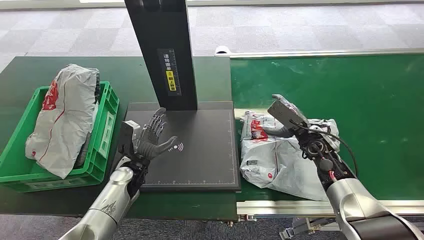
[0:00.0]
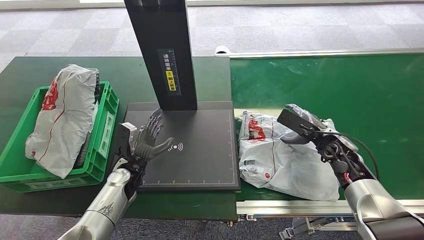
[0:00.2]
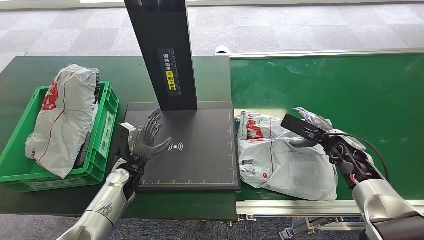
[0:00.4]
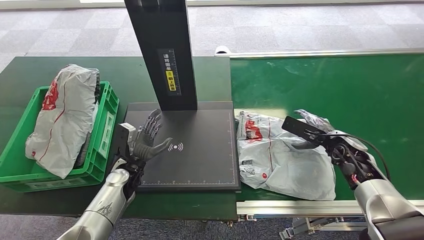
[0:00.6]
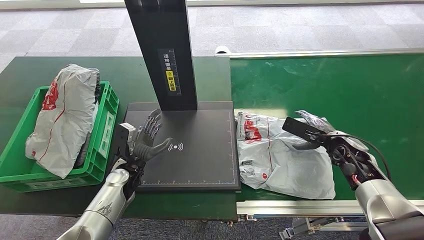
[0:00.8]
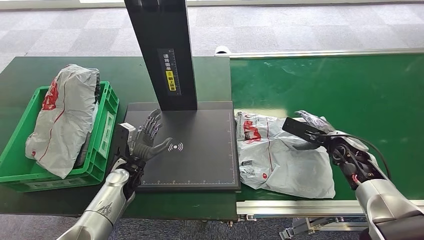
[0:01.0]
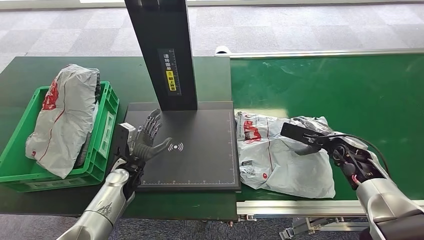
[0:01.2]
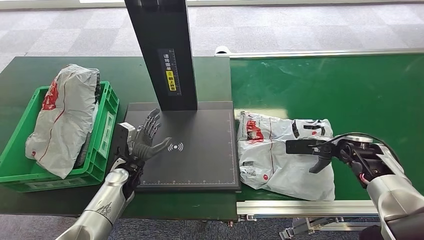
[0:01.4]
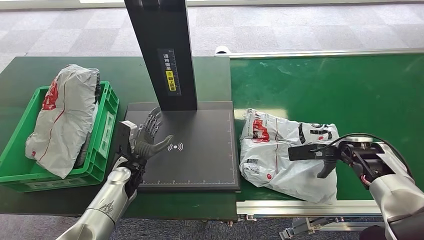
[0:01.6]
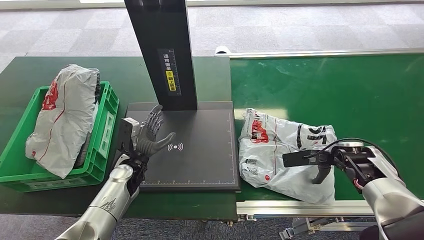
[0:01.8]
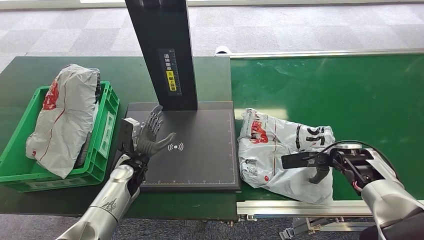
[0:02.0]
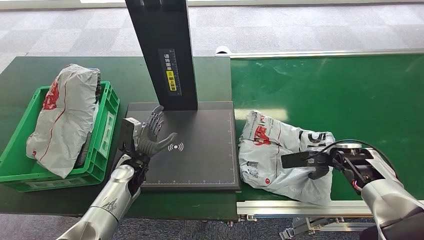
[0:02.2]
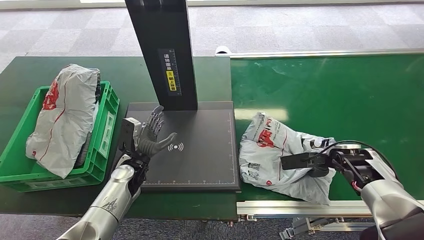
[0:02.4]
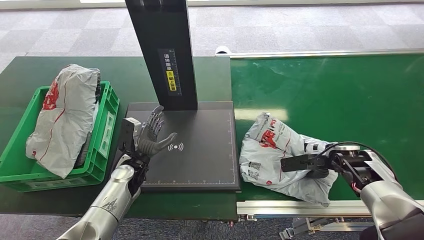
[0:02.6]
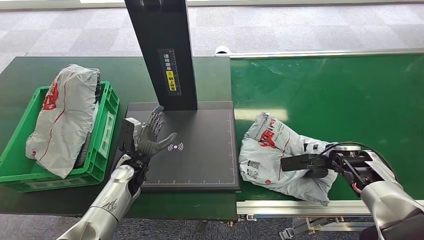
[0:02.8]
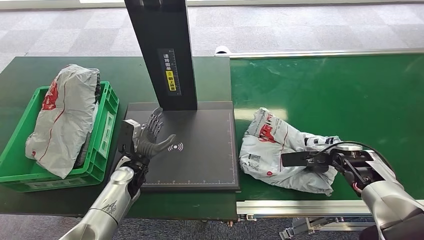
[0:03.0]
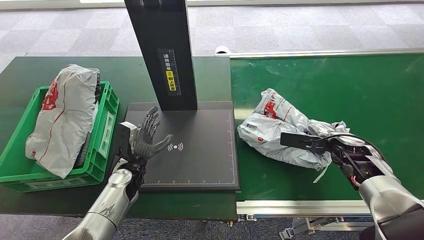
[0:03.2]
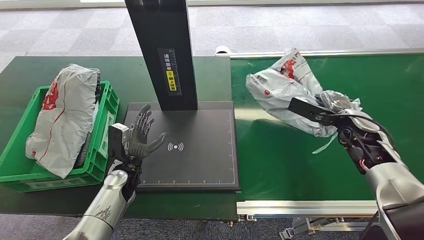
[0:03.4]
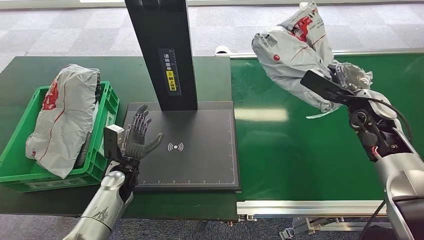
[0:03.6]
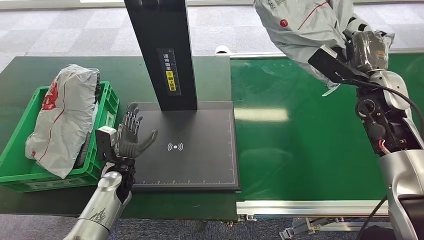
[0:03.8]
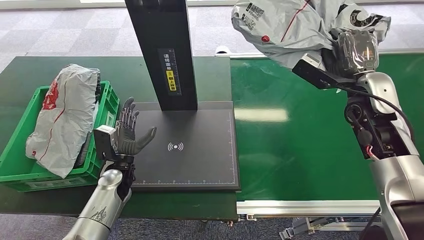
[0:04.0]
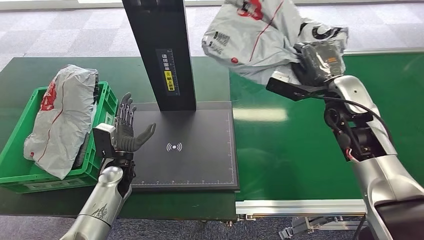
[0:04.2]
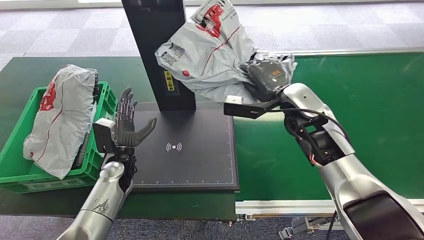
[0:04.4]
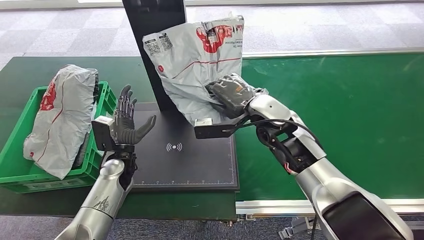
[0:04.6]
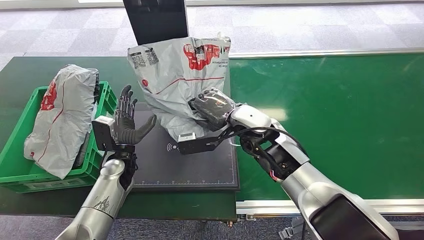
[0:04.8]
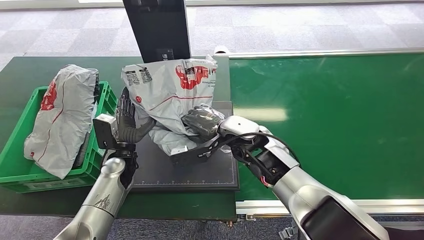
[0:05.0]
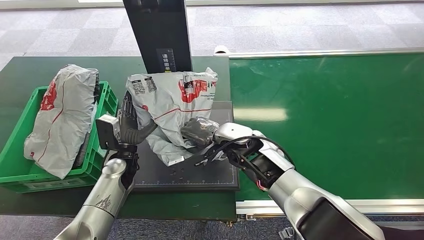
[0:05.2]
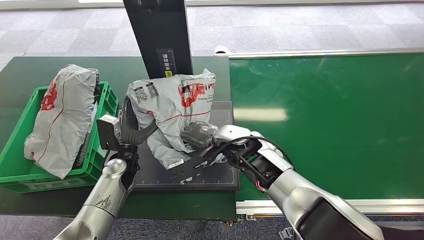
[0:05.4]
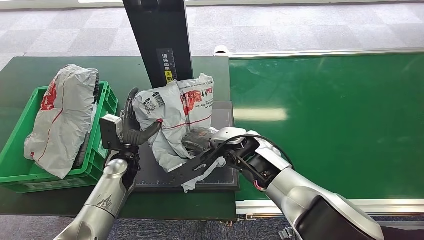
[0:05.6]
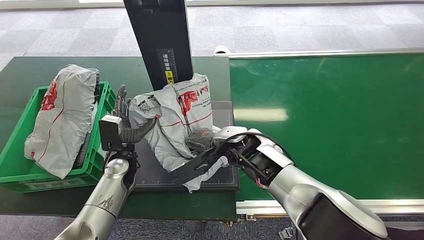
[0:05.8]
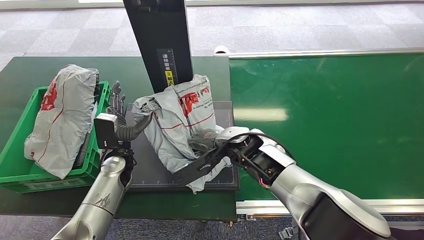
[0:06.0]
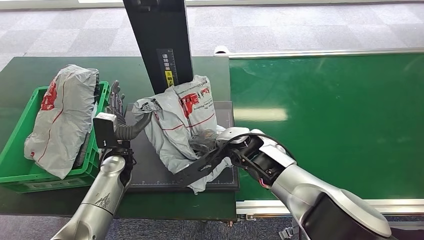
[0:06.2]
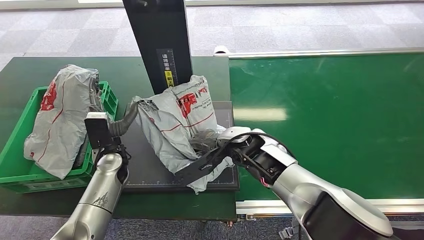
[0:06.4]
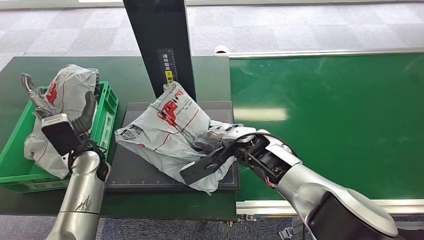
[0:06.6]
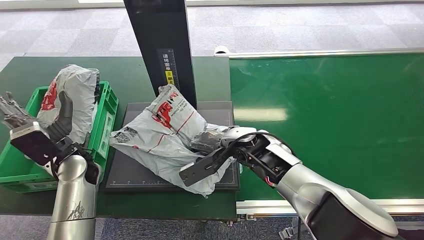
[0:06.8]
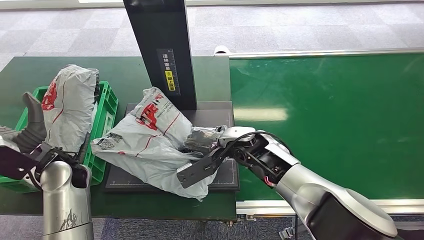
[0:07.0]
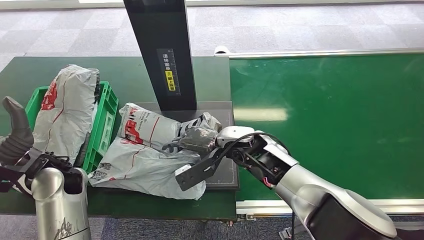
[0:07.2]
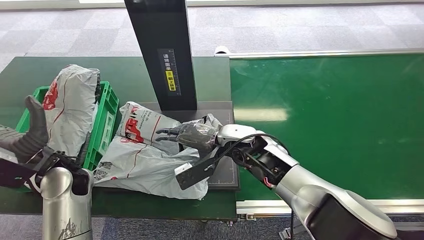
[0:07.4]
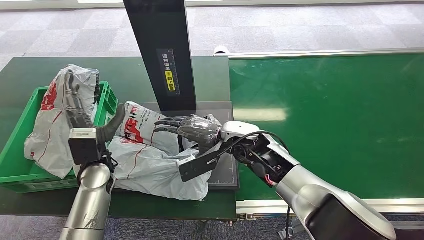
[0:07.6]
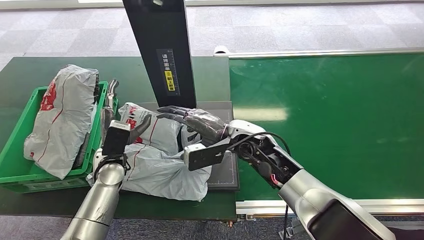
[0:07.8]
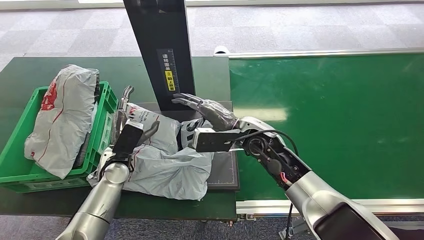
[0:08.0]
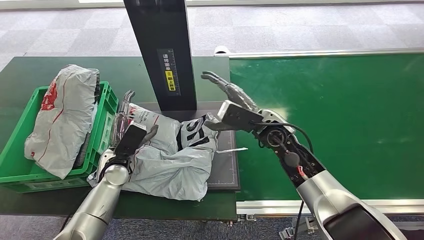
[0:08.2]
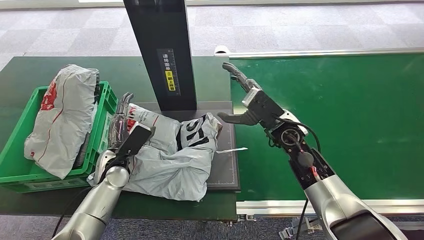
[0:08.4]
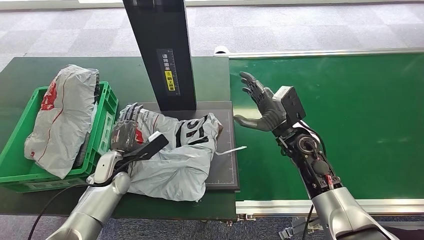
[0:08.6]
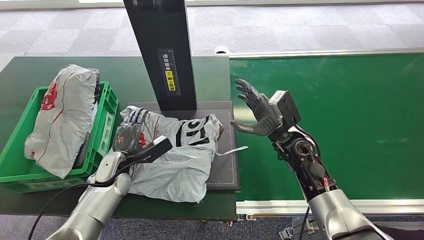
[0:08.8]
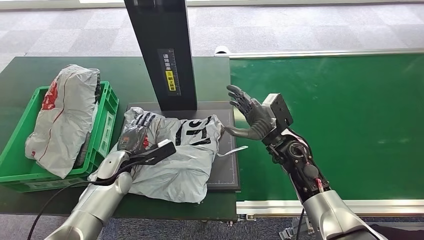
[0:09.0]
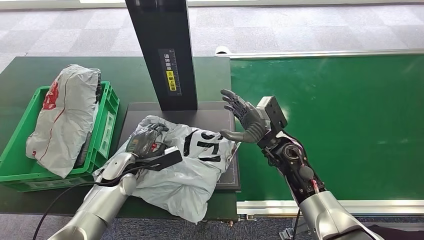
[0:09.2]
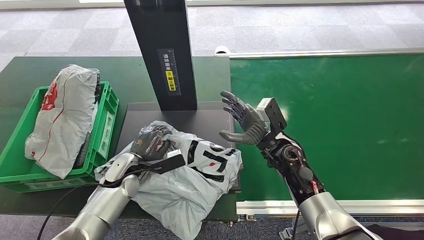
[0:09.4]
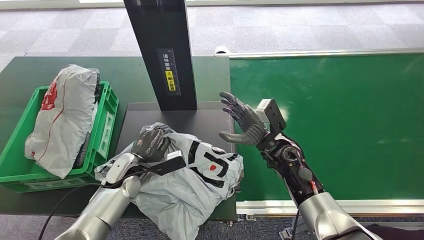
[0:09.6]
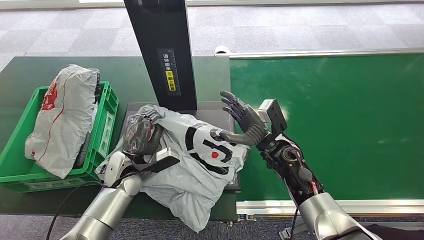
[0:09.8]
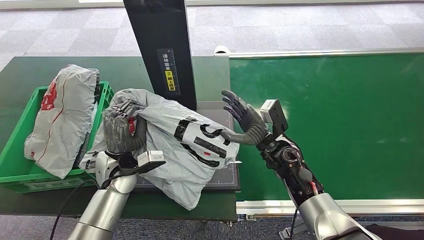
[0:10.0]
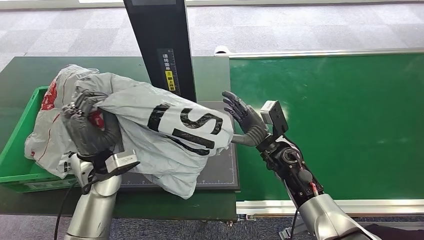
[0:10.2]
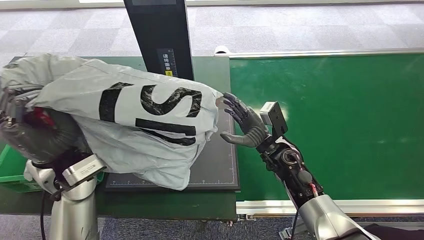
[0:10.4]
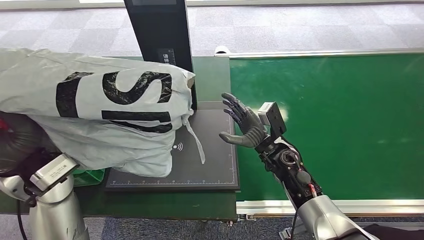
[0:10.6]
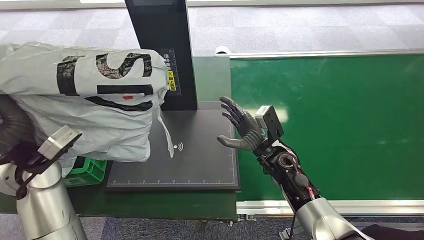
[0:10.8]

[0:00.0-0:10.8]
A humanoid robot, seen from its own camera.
Step, 0:00.0 to 0:03.2: Pick up the package from the conveyor belt.
Step, 0:03.6 to 0:07.6: Place the package onto the inbound machine.
Step, 0:07.8 to 0:09.8: Pick up the package from the inbound machine.
0:01.6 to 0:03.0: The hands move only a little.
0:06.2 to 0:07.8: The left hand moves approximately 10 cm upward and comes back.

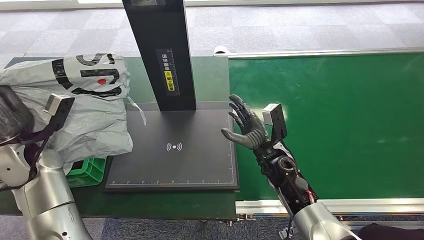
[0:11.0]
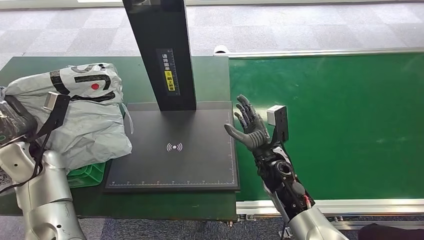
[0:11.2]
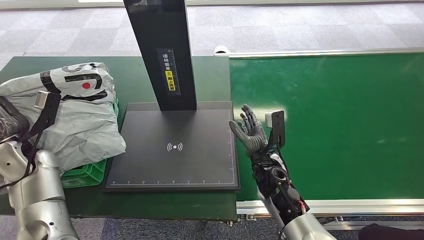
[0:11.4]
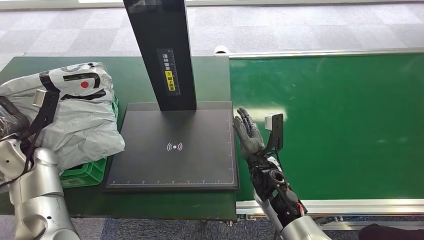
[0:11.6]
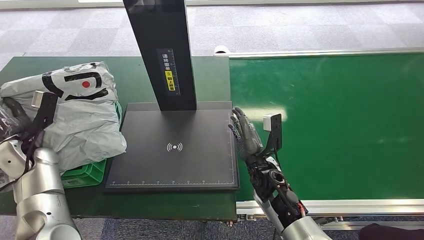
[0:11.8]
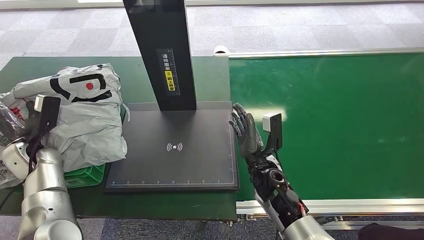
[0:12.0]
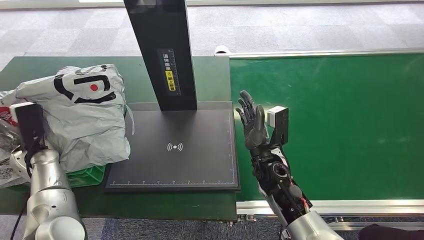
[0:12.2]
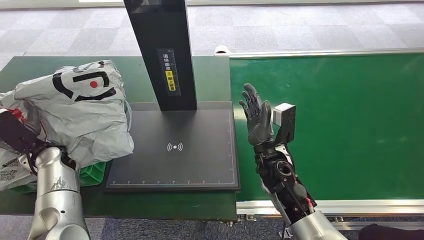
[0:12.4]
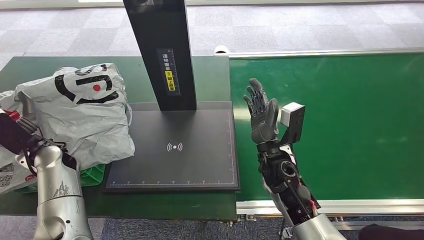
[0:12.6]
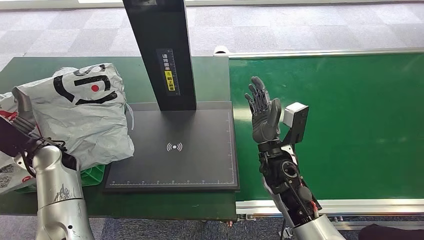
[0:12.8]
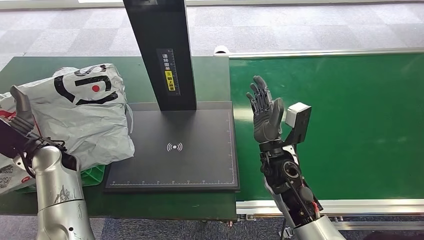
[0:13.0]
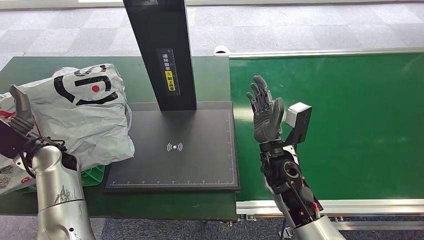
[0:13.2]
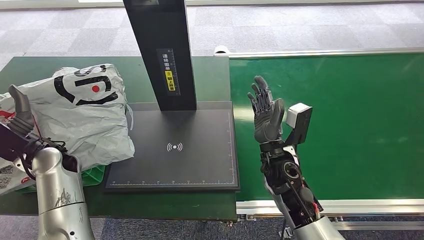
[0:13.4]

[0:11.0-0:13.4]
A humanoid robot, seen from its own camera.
Step, 0:11.0 to 0:13.4: Place the package into the parcel locker.
0:11.0 to 0:12.2: The left hand moves downward and to the left, approximately 10 cm.
0:12.2 to 0:13.4: The left hand is displaced to the right and upward by approximately 10 cm.
